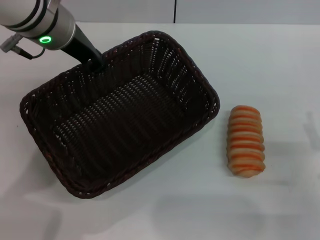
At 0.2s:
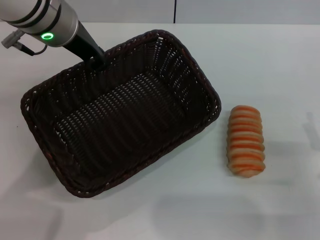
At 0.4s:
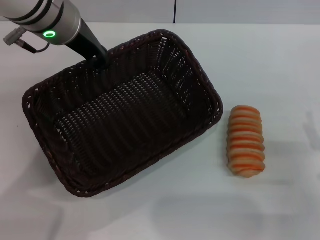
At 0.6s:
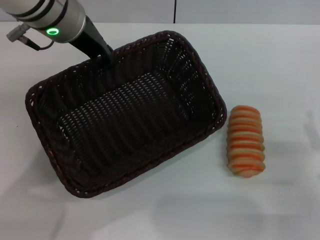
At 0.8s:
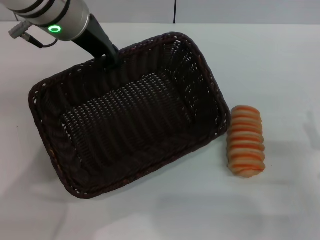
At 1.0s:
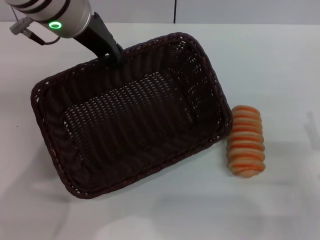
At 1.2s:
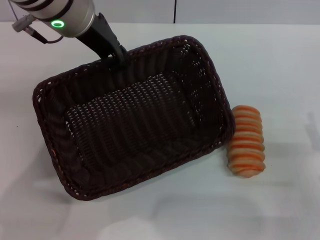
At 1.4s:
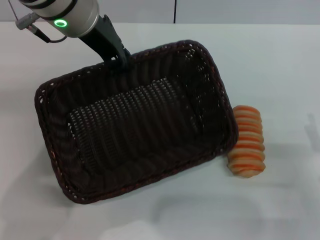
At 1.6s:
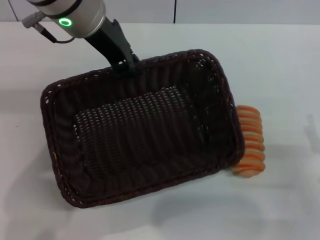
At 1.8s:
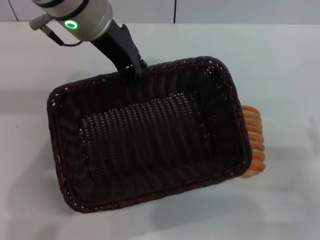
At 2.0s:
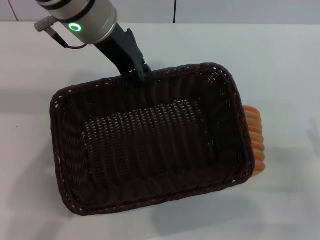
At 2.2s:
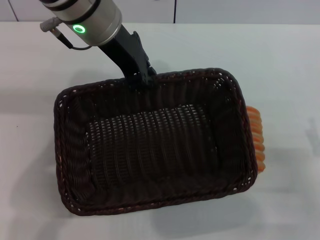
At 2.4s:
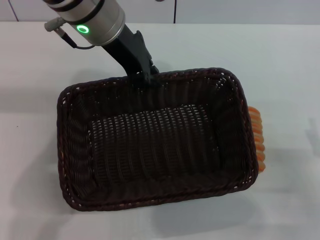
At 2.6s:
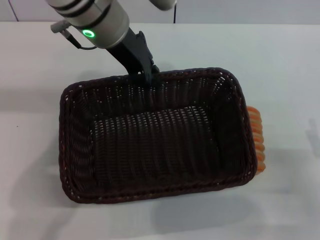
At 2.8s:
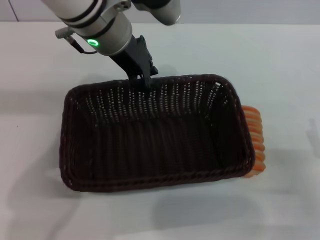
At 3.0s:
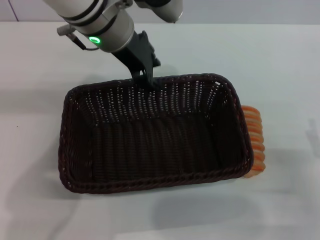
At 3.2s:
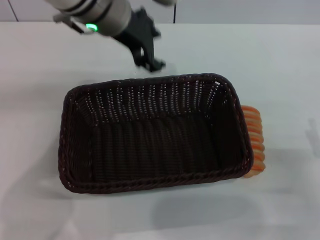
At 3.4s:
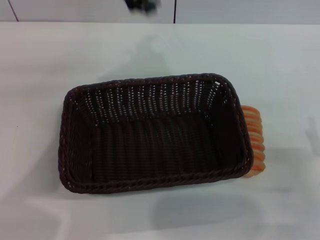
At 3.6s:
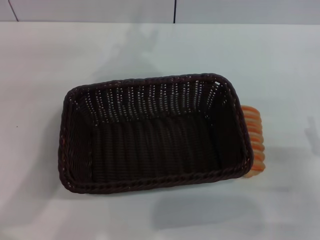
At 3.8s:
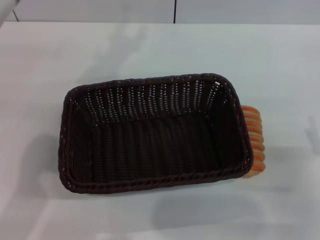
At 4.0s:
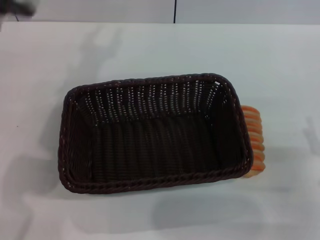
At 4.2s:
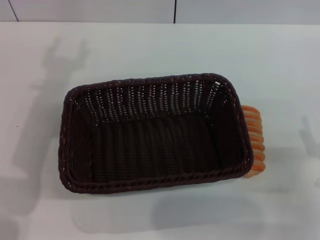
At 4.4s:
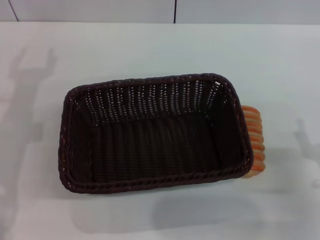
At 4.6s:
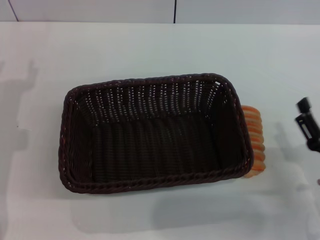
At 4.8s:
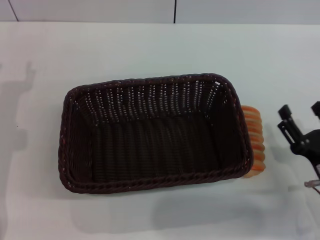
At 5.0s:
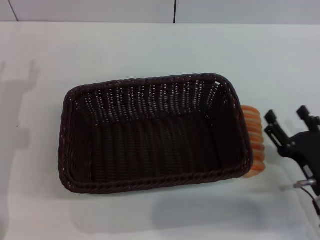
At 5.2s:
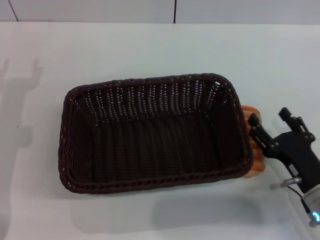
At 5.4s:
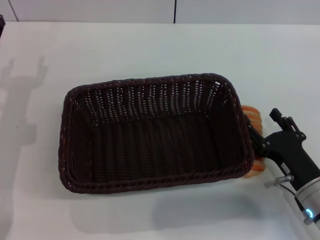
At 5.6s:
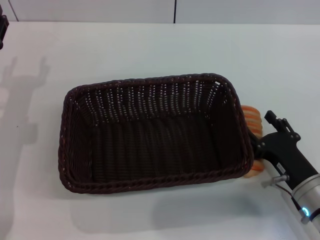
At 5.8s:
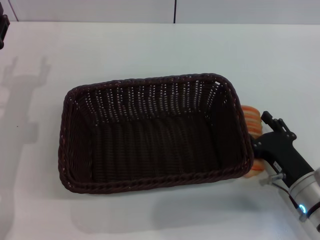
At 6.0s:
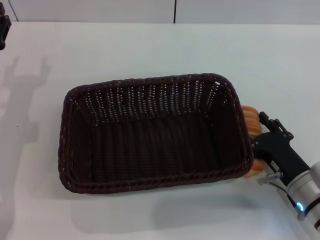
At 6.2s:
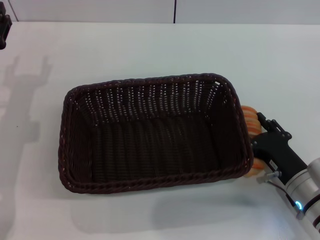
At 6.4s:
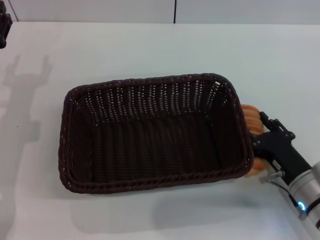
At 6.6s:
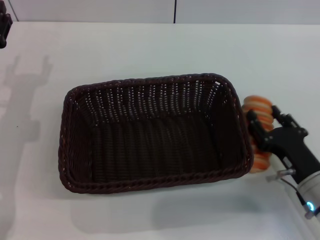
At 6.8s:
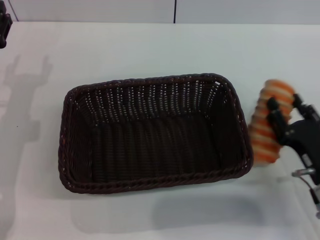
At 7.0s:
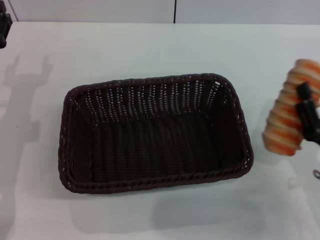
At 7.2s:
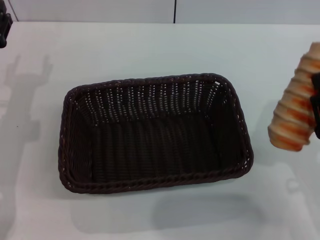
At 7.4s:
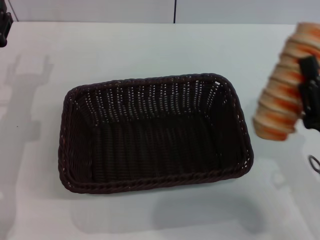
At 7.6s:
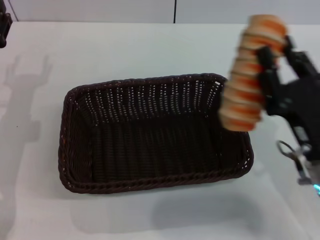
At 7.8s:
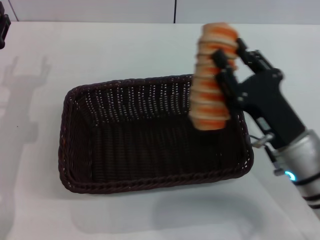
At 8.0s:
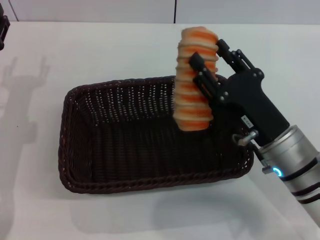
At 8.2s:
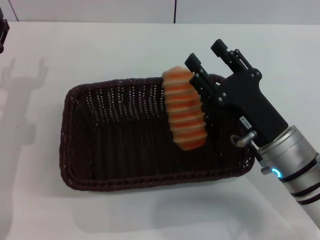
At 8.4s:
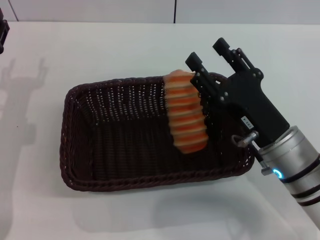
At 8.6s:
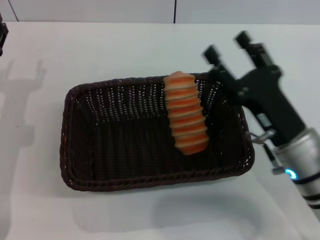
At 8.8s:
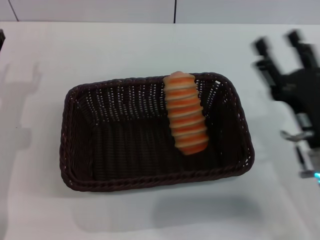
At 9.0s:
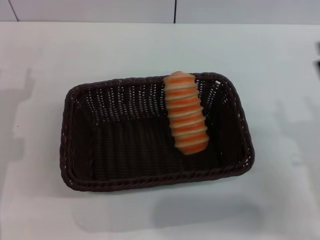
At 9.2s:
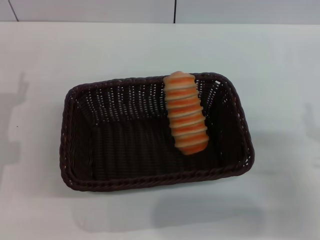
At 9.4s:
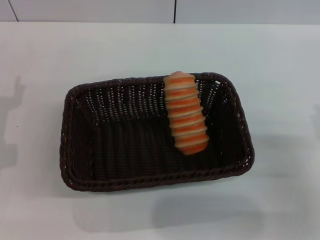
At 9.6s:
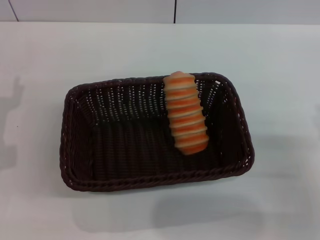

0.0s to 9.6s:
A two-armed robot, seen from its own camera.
Step, 0.0s to 3.2s: Place the basket in the center of the table with the left gripper.
Step, 3.4s to 6.2s: Grasp the long bread with right gripper.
Step, 6.4s to 8.8s: Place the long bread in the basket with right gripper.
1.6s to 3.2s: The grippers make only small movements.
3.2s to 4.8s: The left gripper moves to the left, downward and backward, approximately 30 cm, and opens.
4.8s to 6.4s: The right gripper ends up roughly 5 cm from where it was.
6.4s to 8.0s: The right gripper travels upward and to the left by about 10 cm, and closes up.
8.0s to 9.6s: The left gripper changes place by about 5 cm. Meanwhile the right gripper is displaced to the right and backward by about 15 cm, and opens up.

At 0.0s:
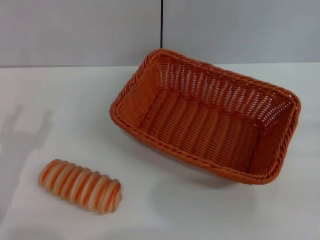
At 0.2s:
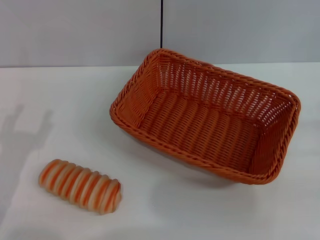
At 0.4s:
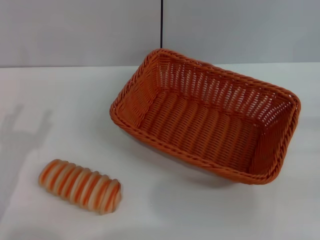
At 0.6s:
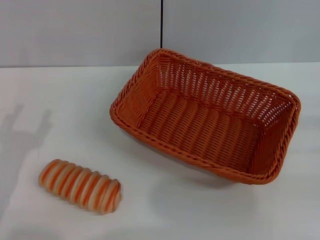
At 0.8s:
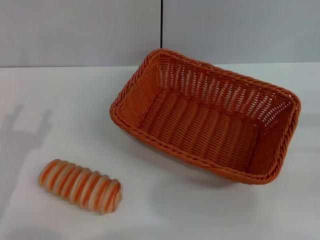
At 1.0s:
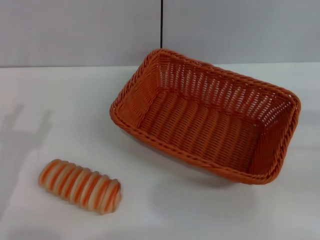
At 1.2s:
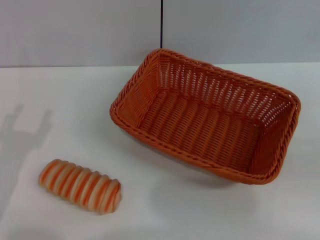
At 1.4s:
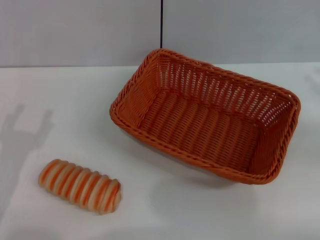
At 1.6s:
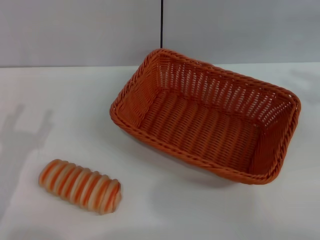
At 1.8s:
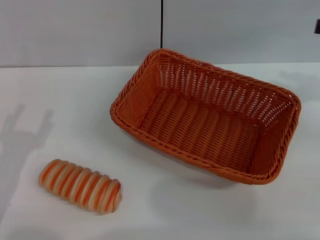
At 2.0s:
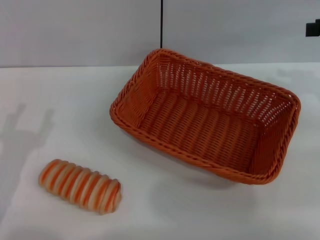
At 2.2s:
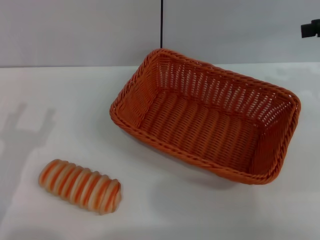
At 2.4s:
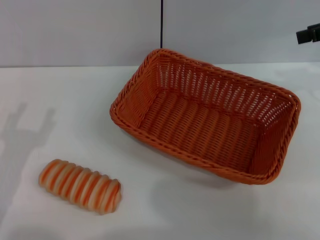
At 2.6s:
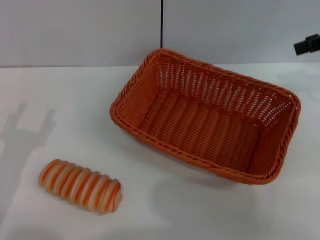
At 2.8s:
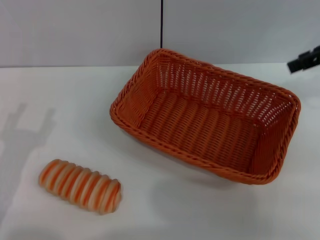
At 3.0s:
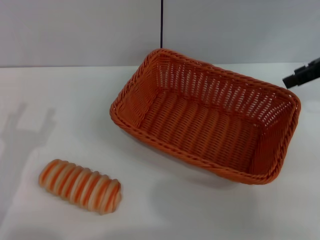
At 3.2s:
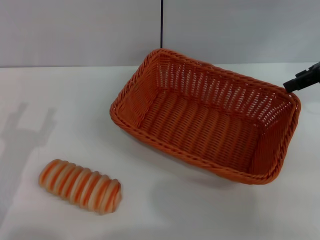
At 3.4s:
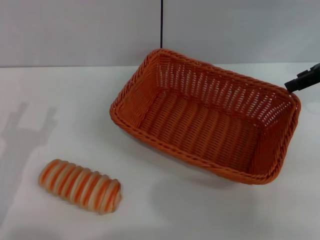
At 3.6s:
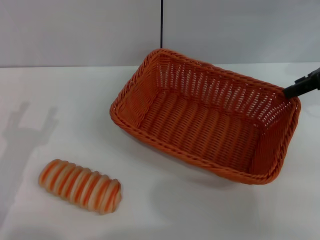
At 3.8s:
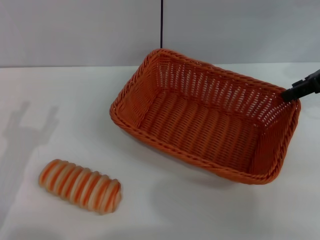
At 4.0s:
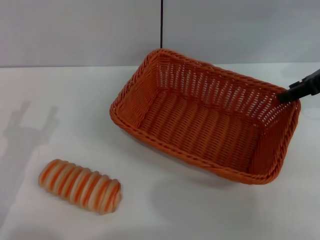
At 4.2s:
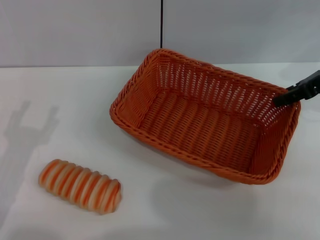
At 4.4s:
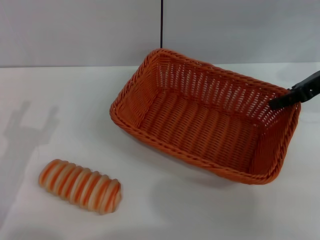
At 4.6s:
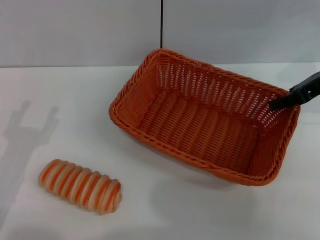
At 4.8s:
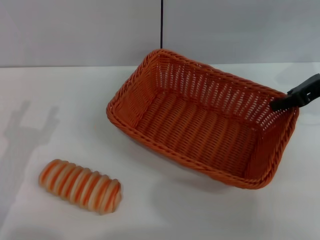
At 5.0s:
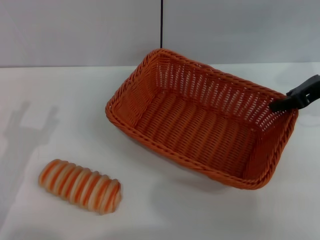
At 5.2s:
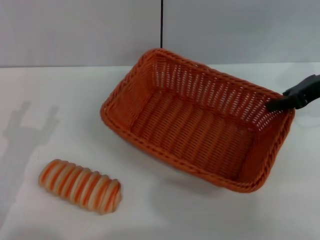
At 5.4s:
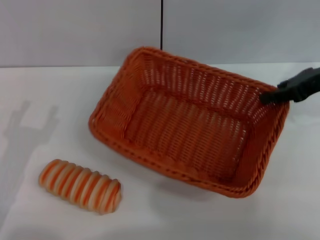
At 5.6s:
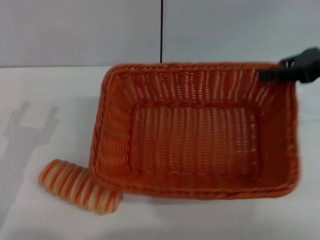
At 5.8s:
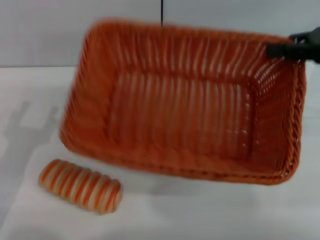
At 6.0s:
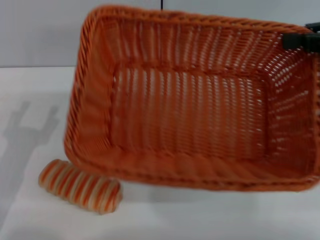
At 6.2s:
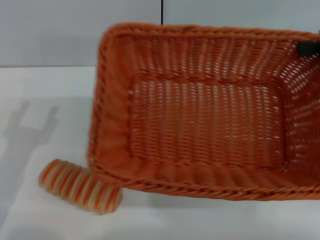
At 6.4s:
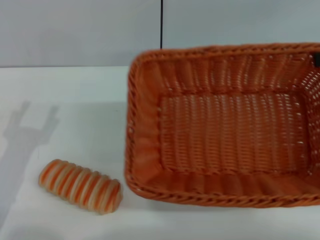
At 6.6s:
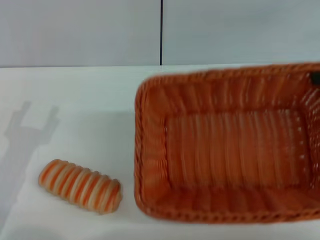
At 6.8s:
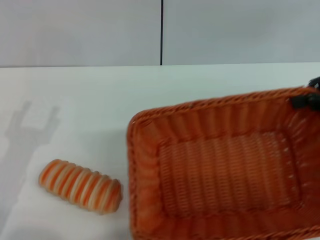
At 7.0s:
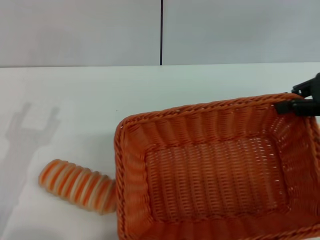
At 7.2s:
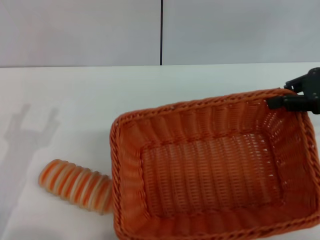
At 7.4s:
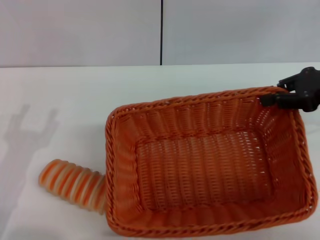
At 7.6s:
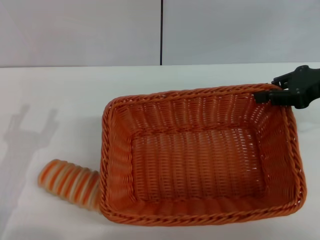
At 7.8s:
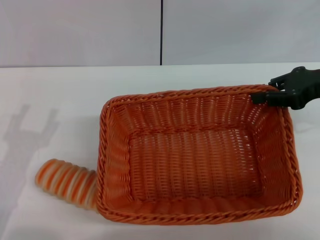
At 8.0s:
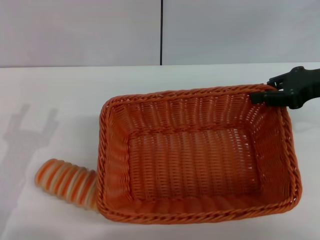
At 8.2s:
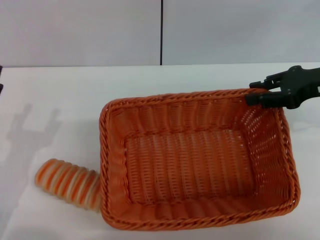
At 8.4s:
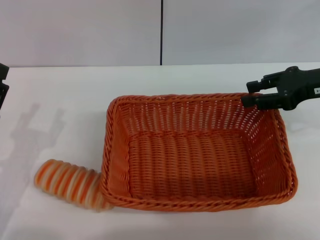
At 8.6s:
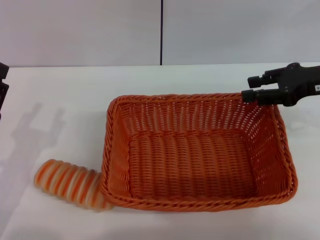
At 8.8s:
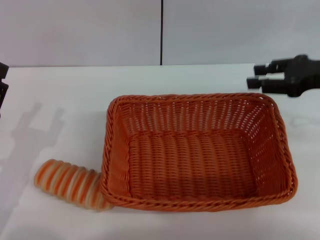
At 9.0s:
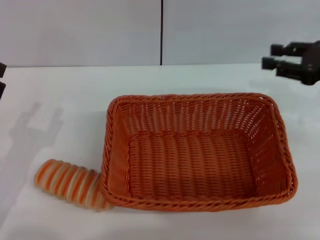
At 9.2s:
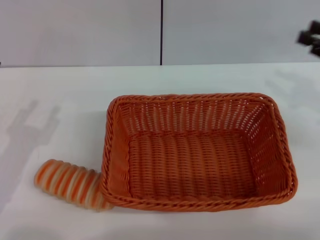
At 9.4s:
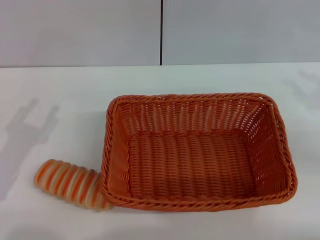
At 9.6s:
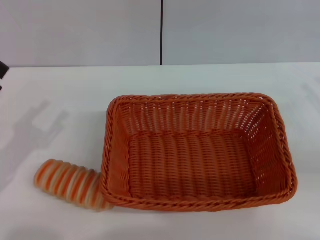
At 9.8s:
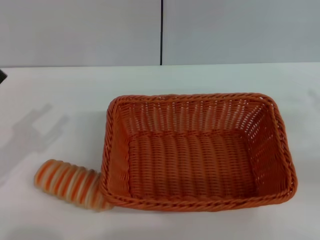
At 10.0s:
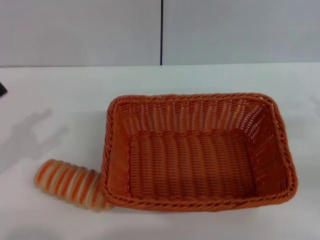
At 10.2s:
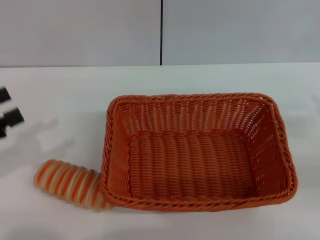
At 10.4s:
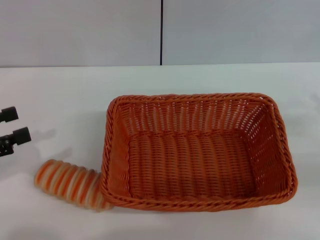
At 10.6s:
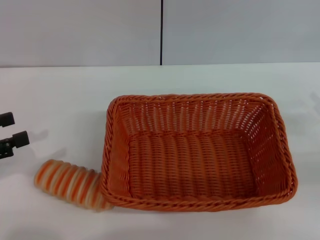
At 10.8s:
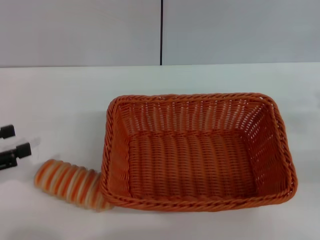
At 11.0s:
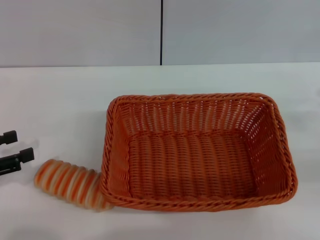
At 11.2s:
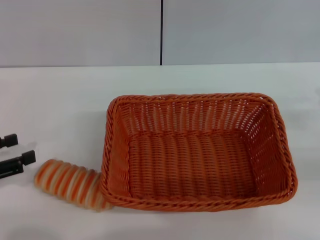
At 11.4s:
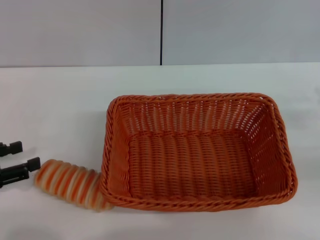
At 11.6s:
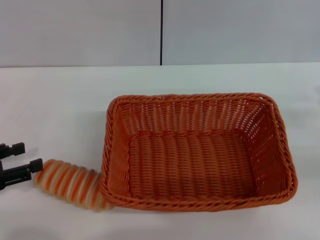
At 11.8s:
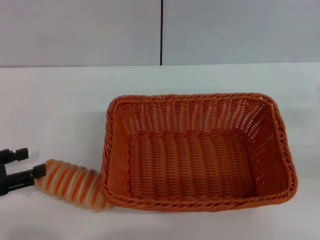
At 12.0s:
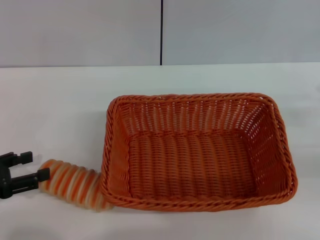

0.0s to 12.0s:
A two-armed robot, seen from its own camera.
Step, 0.0s to 5.8s: Pick up the light basket with the right gripper.
Step, 6.0s to 9.0s: Place the light basket in the center of view with the right gripper.
1.6s to 3.0s: The right gripper goes some 10 cm to the left and forward.
3.0s to 4.4s: The right gripper shifts by roughly 5 cm.
4.4s to 6.0s: The right gripper moves upward and backward, some 10 cm, and closes.
6.0s to 7.6s: The right gripper is displaced downward by about 5 cm.
7.6s to 9.0s: The right gripper opens its fingers.
9.0s to 10.4s: The left gripper moves to the left and upward, approximately 10 cm. Meanwhile the right gripper heads backward, downward and to the right, covering roughly 15 cm.
10.4s to 12.0s: The left gripper shifts approximately 5 cm downward.
